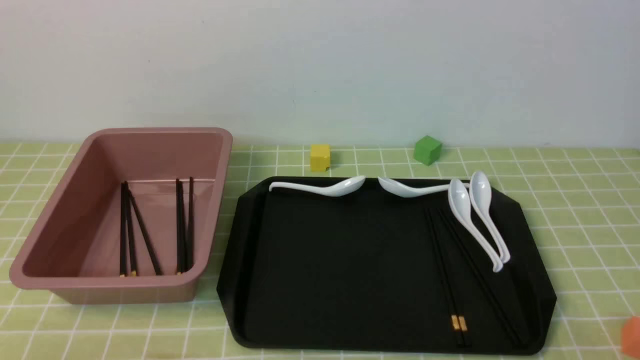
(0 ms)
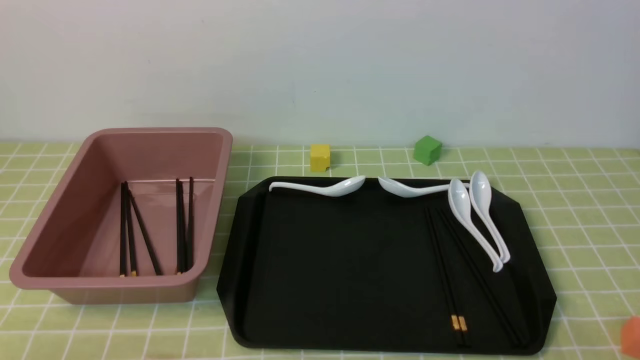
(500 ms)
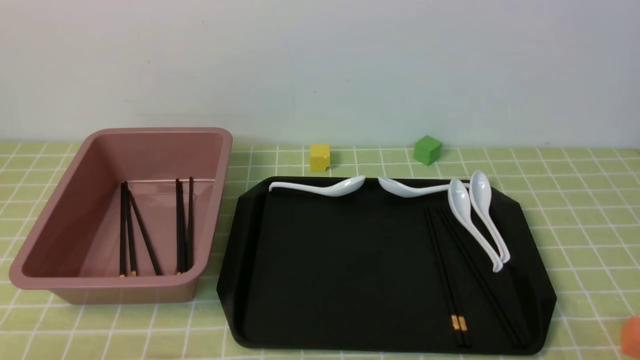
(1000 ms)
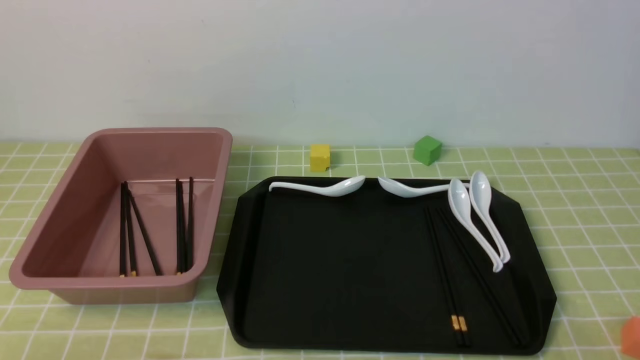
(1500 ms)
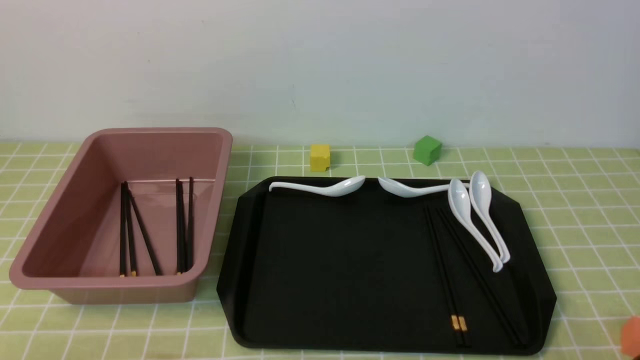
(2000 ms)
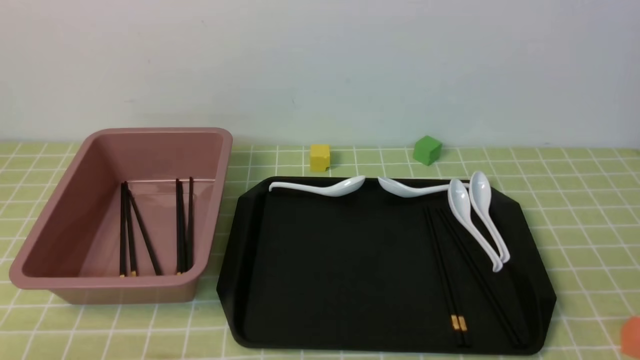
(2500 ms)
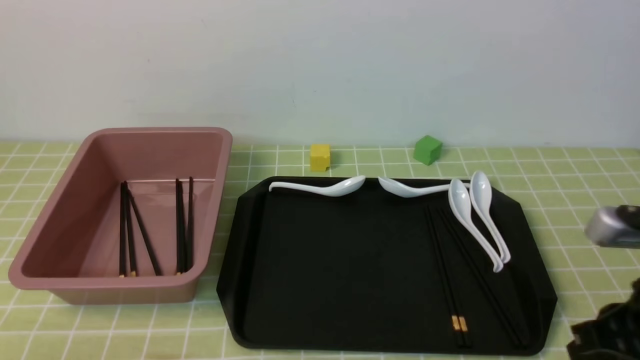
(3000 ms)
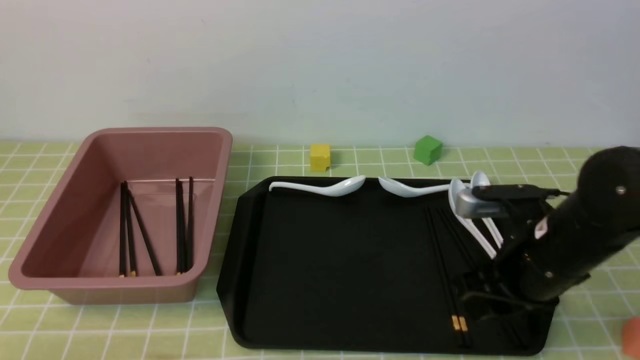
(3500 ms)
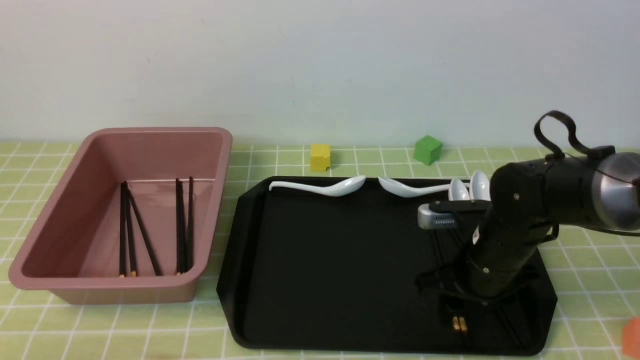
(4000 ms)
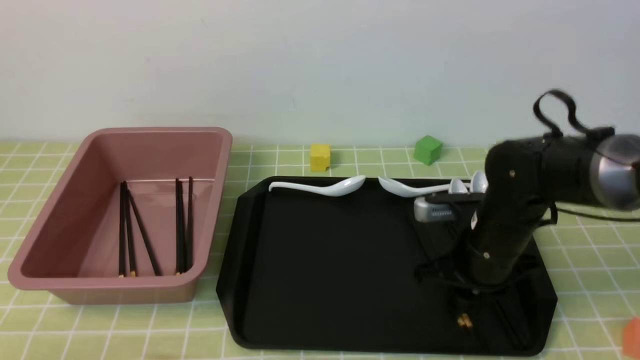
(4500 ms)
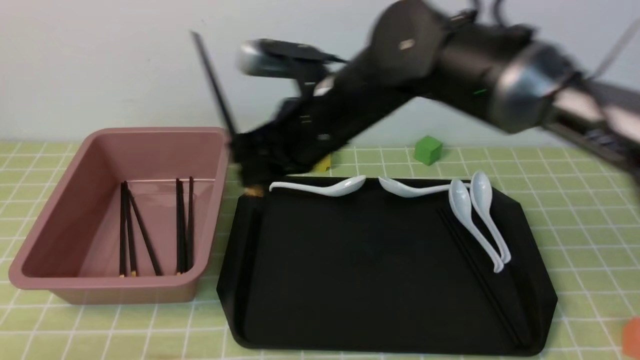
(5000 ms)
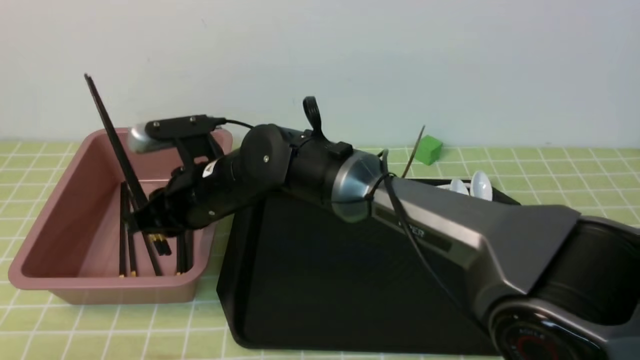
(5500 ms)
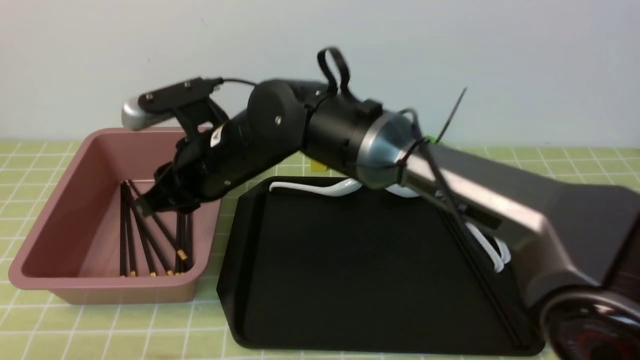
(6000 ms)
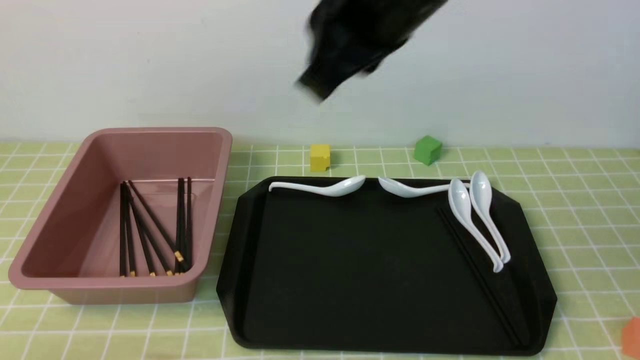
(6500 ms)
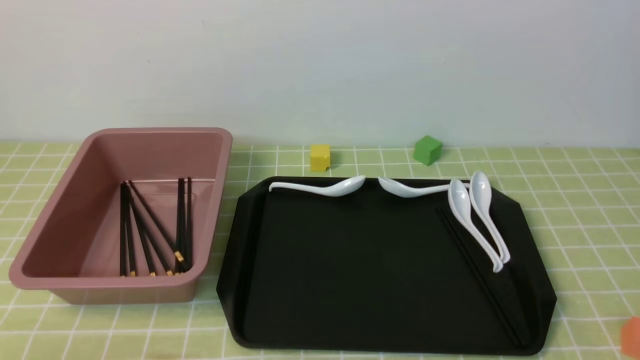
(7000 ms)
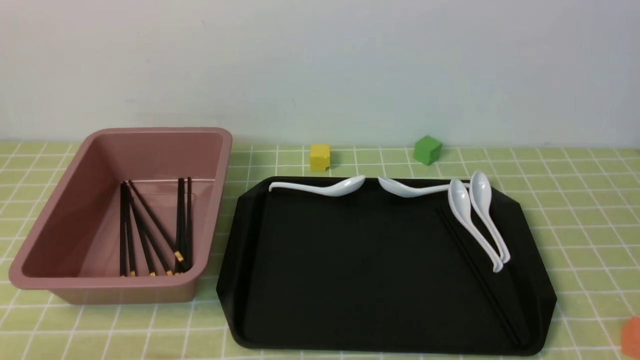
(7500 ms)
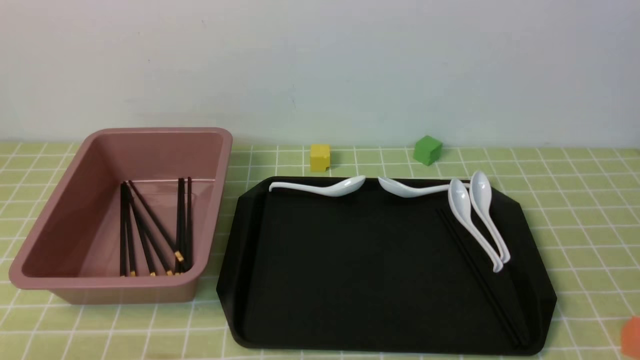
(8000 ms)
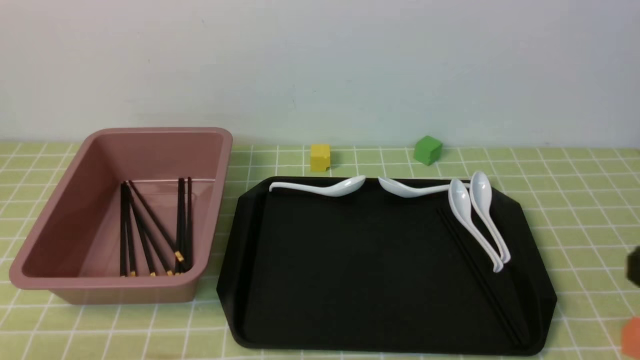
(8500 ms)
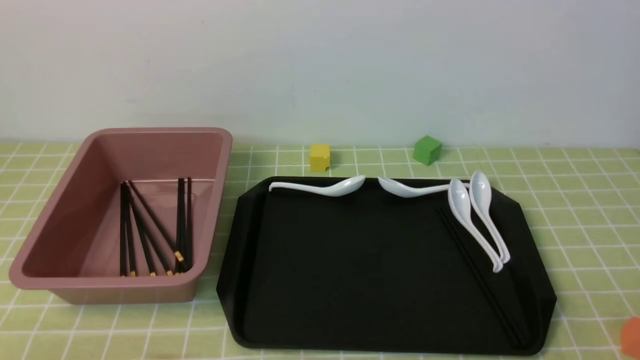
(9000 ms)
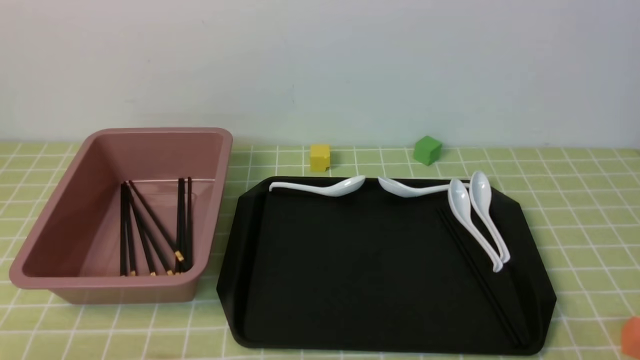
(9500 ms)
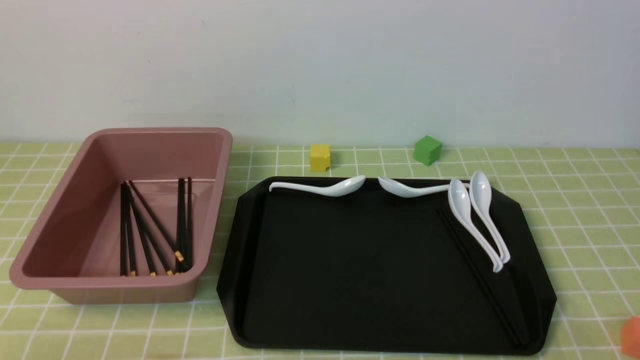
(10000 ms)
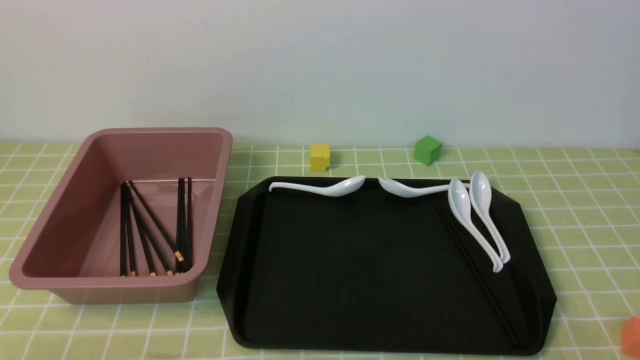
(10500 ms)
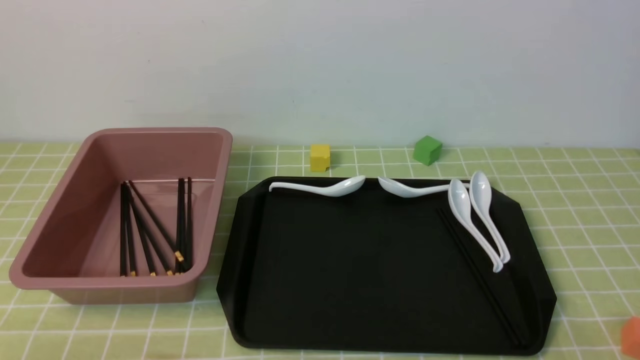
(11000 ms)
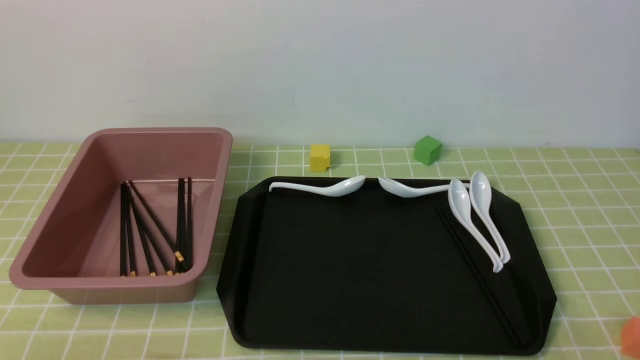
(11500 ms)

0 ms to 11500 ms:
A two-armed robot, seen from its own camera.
Step, 0 ms to 4500 ms: use the right arm to grab a pair of chopsticks.
Step, 5000 ms to 6000 ms: use the right arm to put the chopsticks into the lunch box.
2000 ms to 4000 ms: The right gripper heads forward and to the left, covering approximately 30 cm, and closes, then opens again.
4000 ms to 6000 ms: The right gripper shifts some 25 cm to the left, and closes.
6000 ms to 7500 ms: The right gripper travels to the right, backward and upward by about 50 cm, and closes up.
9500 ms to 11500 ms: Neither gripper changes place.
